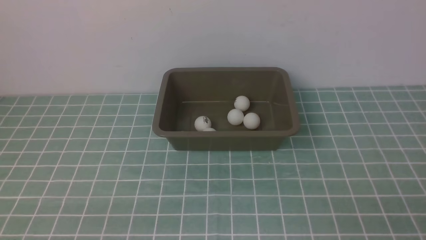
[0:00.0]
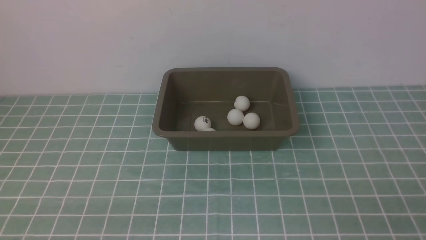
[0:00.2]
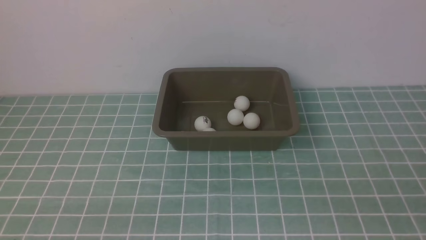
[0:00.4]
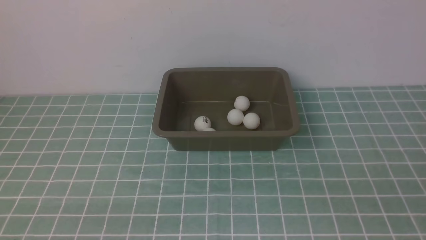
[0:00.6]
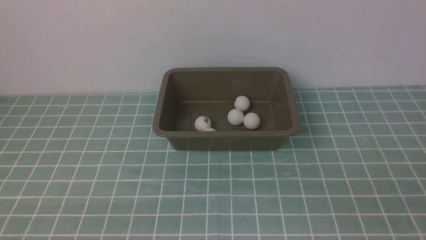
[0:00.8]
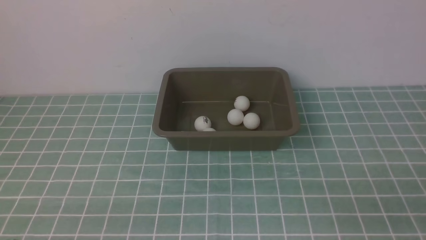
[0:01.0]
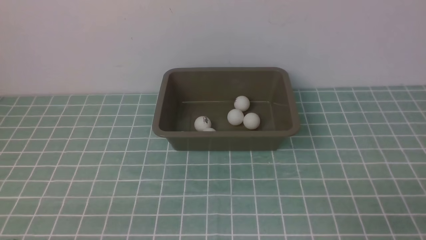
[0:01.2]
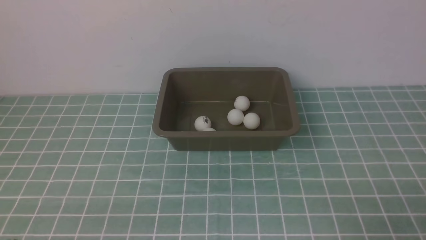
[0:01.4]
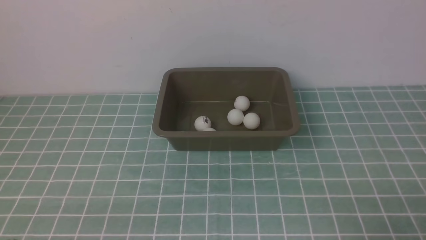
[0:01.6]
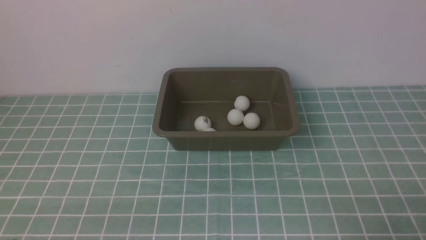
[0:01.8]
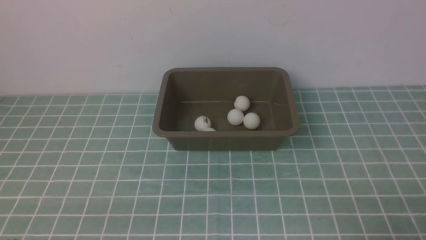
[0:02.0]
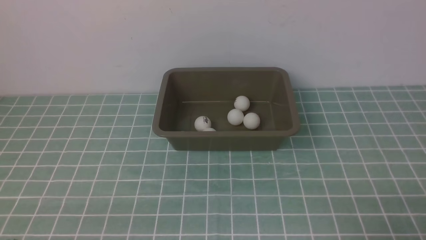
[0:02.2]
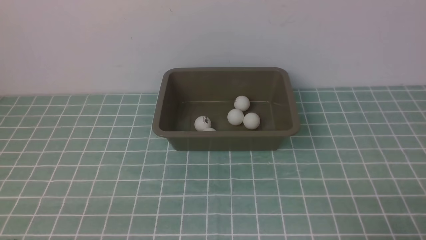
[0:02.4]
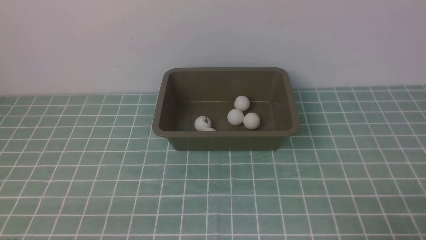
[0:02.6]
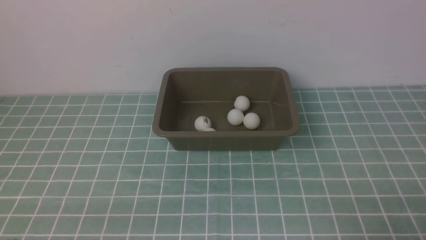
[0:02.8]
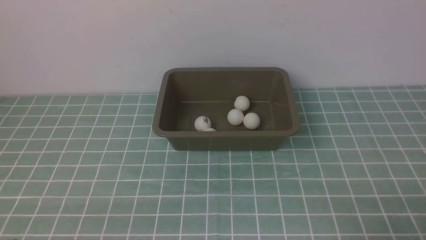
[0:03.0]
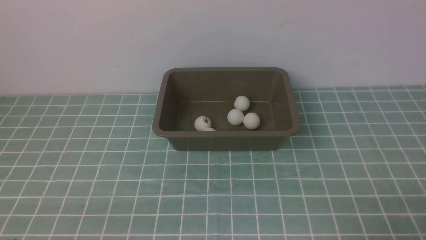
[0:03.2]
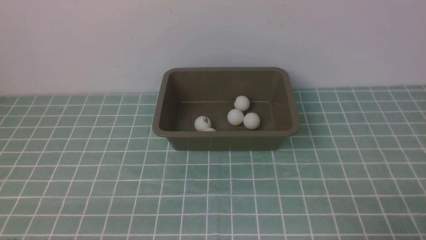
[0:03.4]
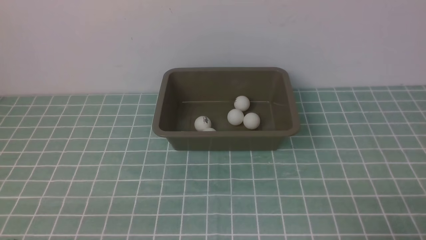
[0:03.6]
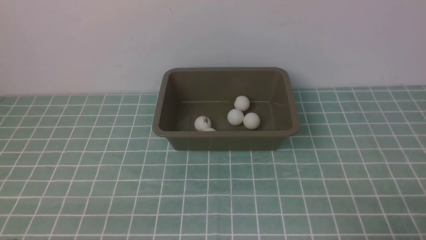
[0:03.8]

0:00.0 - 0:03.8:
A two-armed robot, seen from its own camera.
0:02.6 - 0:03.8: The two grippers keep their place.

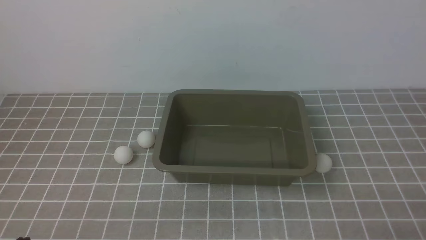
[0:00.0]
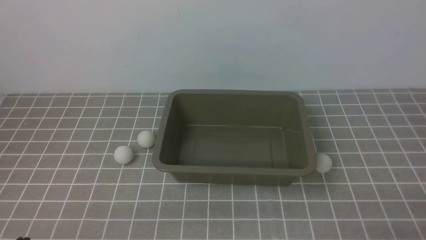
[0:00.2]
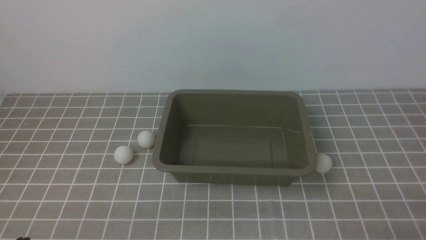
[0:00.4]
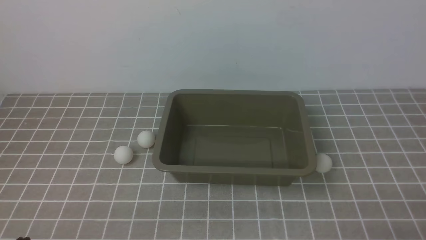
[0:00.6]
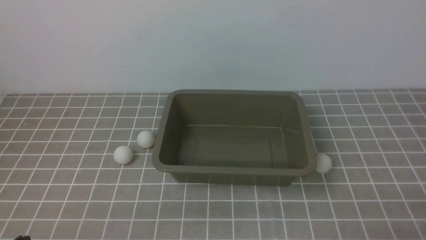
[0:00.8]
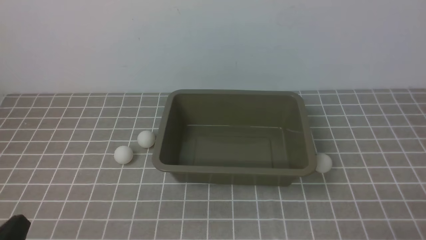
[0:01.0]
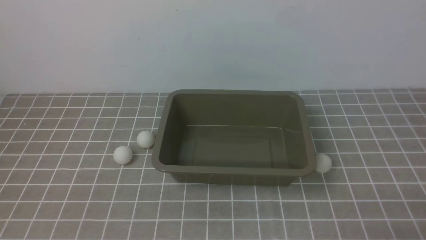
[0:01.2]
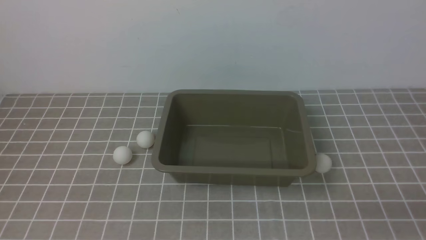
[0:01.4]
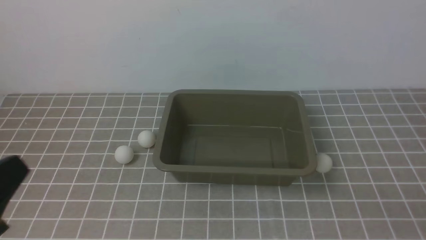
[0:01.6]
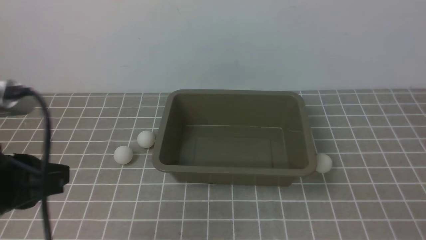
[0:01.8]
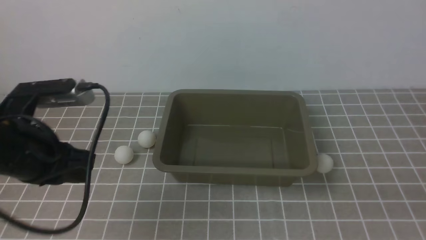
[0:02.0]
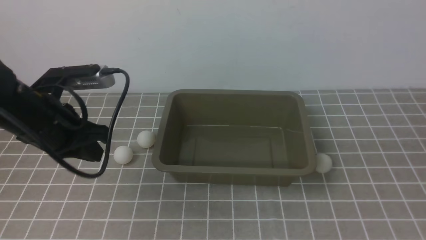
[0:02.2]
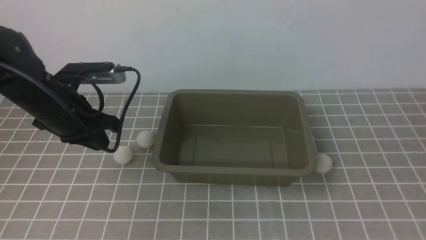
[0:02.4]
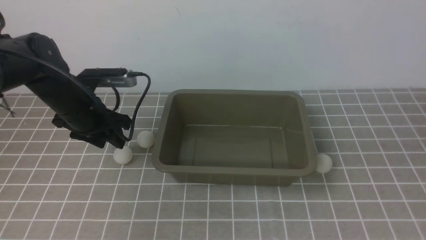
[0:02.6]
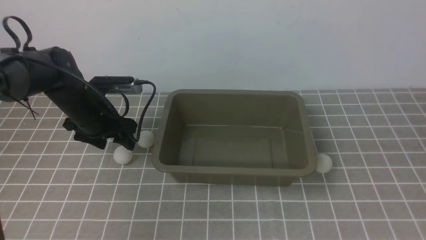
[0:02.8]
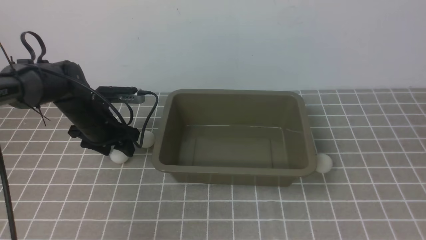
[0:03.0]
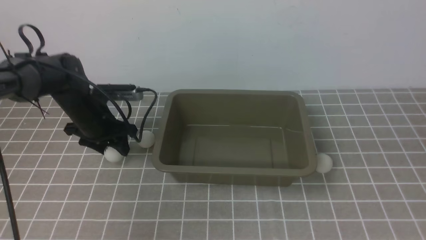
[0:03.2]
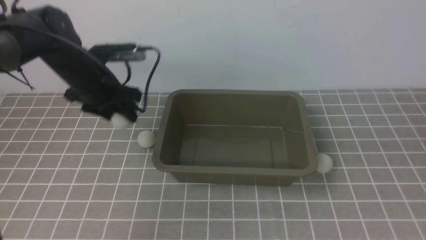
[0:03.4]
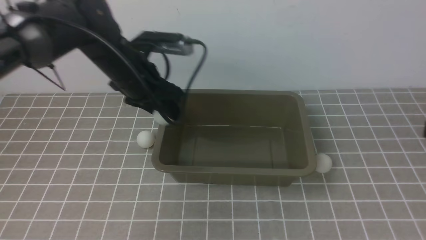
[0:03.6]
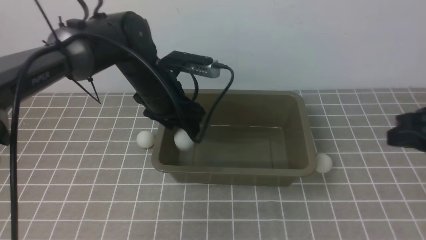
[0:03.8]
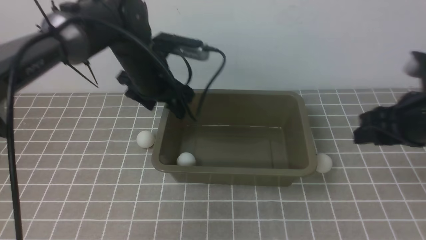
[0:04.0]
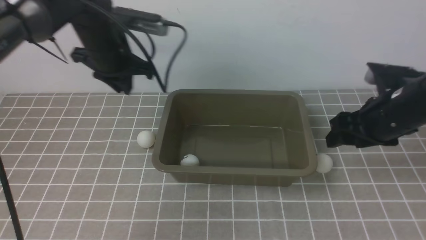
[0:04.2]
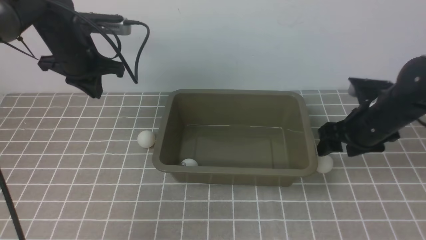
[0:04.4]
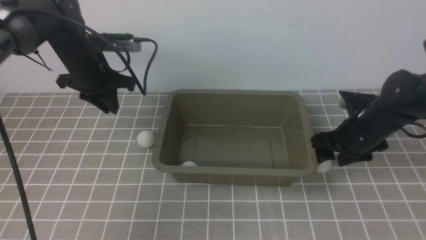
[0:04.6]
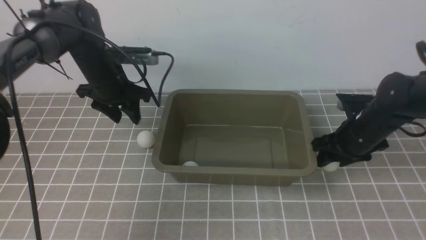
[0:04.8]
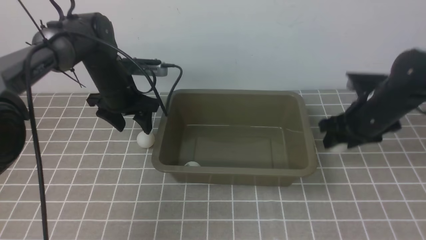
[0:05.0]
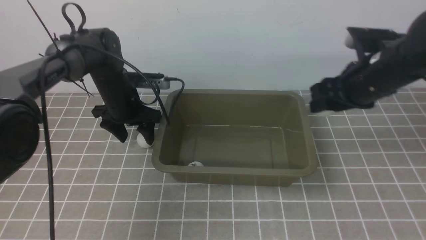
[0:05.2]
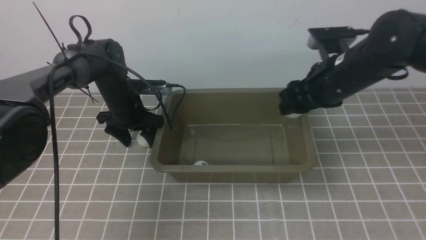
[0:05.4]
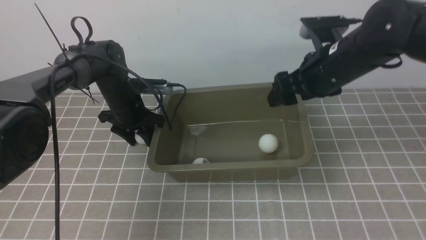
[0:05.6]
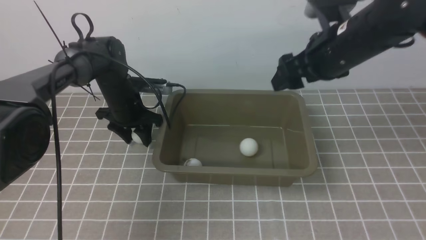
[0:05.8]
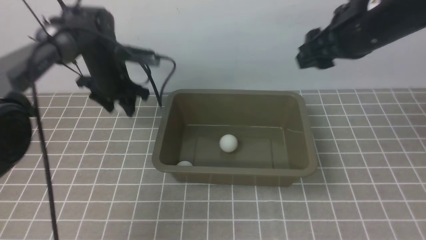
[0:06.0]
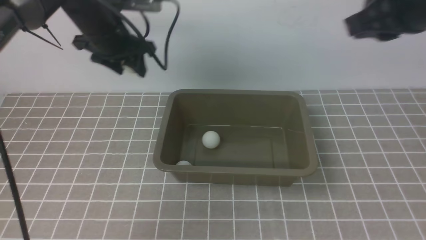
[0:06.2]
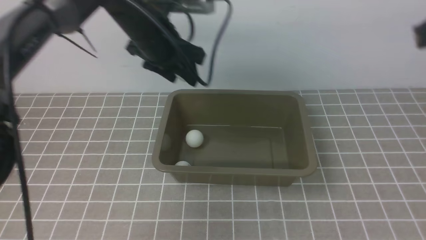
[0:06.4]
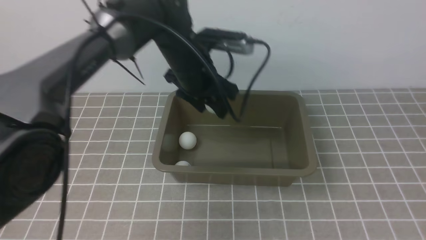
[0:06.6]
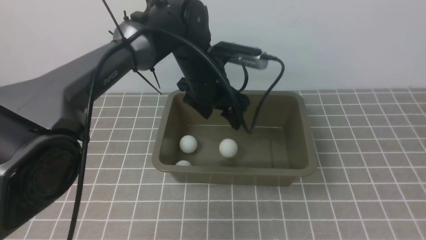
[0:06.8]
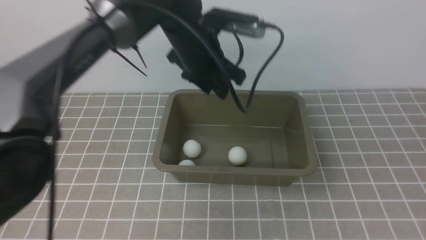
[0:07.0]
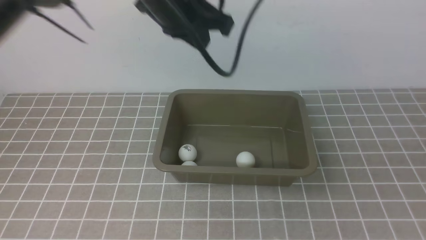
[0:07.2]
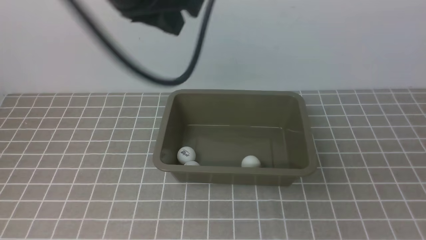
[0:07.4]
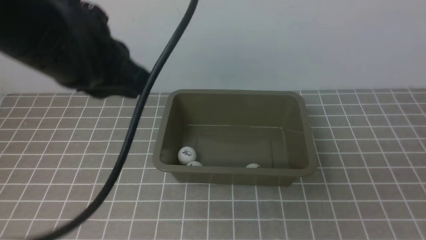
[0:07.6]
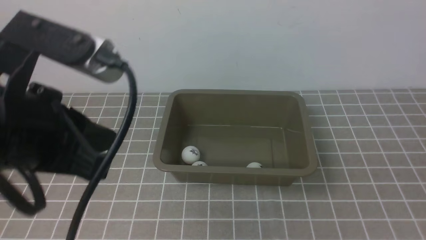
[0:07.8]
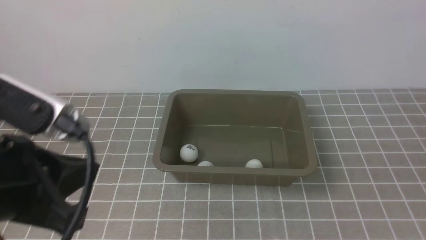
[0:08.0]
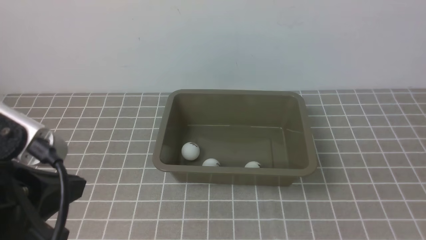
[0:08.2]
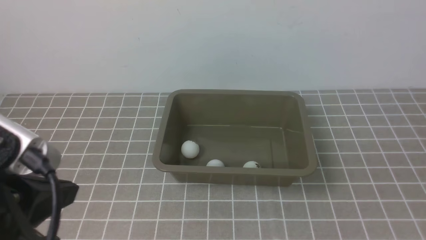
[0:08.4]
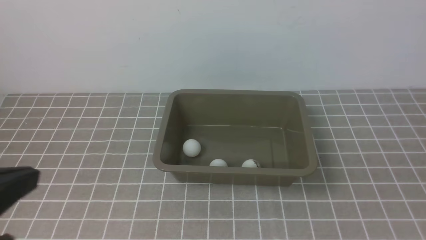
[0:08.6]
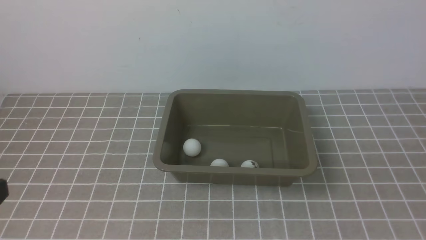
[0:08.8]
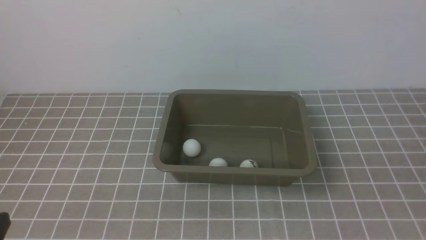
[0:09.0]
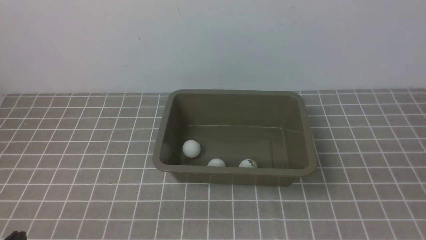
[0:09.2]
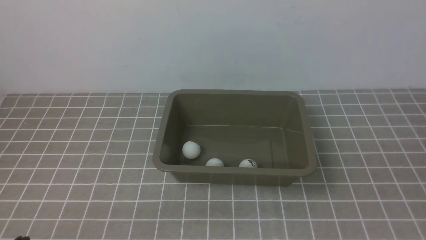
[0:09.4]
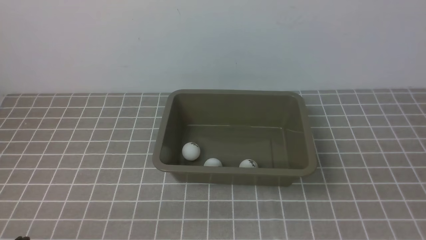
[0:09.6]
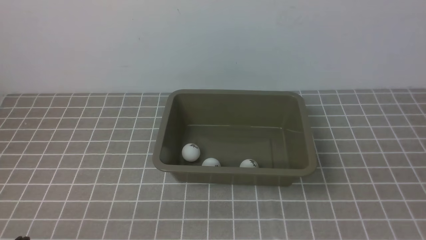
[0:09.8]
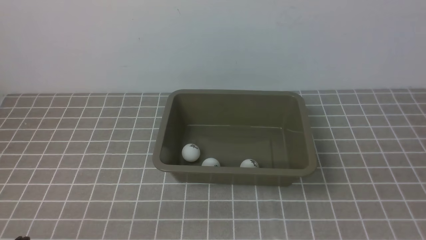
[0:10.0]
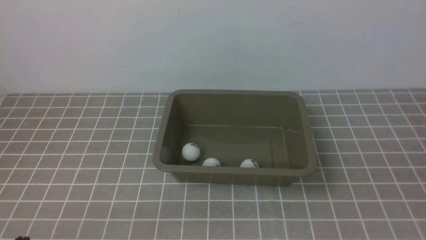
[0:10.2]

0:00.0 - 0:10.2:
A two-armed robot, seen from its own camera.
Step, 0:00.0 - 0:03.2: use the left arm to clamp the table tennis ball closest to it.
Step, 0:03.6 - 0:03.8: use the left arm to put the table tennis ball into the box.
Step, 0:04.0 - 0:05.0: use the right arm to clamp the table tennis ball closest to it.
Step, 0:05.2 - 0:05.6: use the right arm to put the table tennis ball into the box.
Step, 0:05.8 - 0:06.0: use the left arm to clamp the table tennis ball closest to it.
Step, 0:06.4 - 0:06.8: use the left arm to put the table tennis ball into the box.
0:01.4 - 0:03.0: The left gripper heads forward, covering about 35 cm, and opens up; the right gripper heads upward, covering approximately 15 cm.
0:03.0 - 0:04.4: The right gripper shifts some 25 cm forward and downward, and opens. The left gripper heads upward, covering some 10 cm, and closes.
0:04.4 - 0:05.8: The right gripper shifts roughly 15 cm upward and to the left. The left gripper heads downward, covering approximately 15 cm, and opens up.
0:05.8 - 0:07.2: The left gripper heads upward, to the right and backward, covering roughly 30 cm, and closes. The right gripper shifts some 35 cm backward and to the right, and closes.
0:07.2 - 0:08.8: The left gripper travels backward and to the left by roughly 35 cm.
0:08.8 - 0:10.2: The left gripper goes about 15 cm downward.

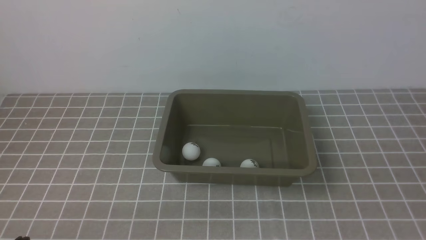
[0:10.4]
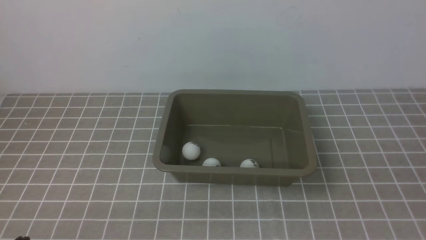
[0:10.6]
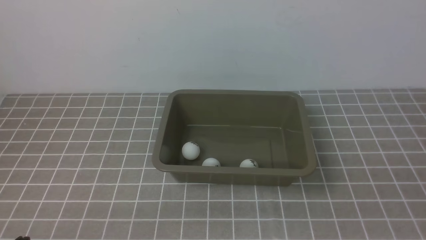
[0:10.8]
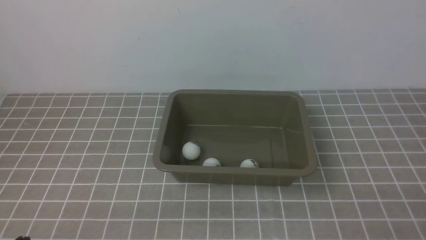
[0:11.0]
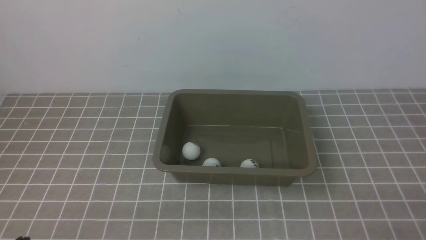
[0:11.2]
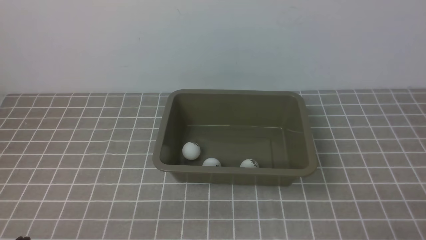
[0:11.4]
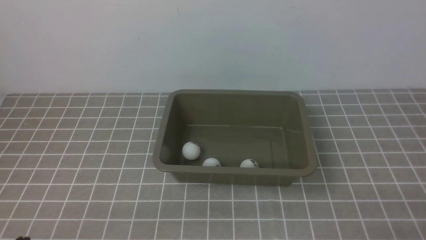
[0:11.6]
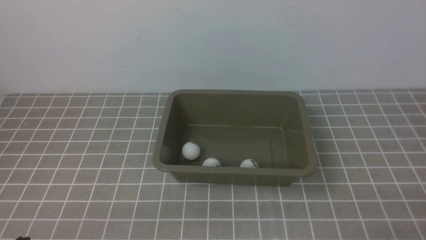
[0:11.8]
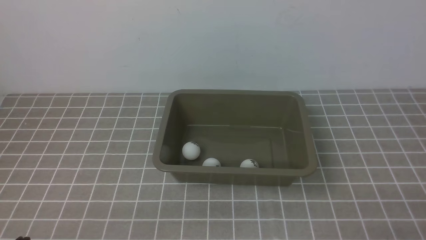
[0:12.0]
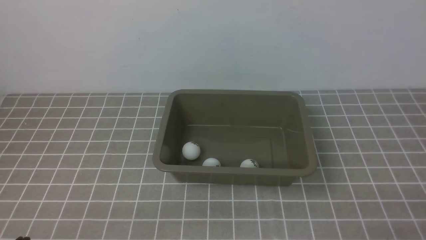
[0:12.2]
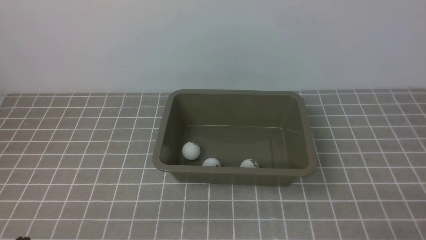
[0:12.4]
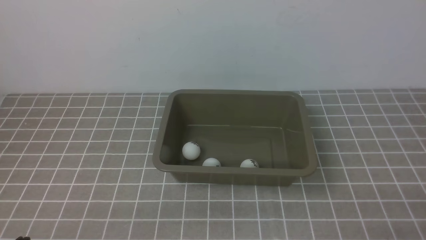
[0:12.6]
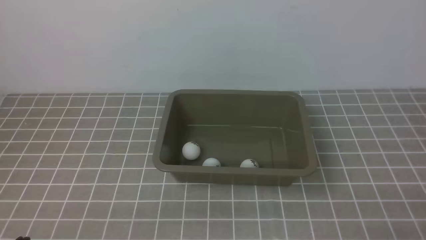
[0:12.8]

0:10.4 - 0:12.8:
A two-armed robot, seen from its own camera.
0:11.6 - 0:12.8: Neither gripper changes place.
